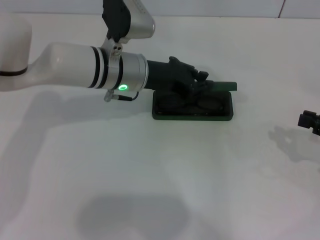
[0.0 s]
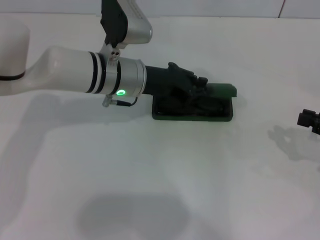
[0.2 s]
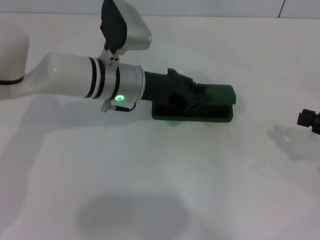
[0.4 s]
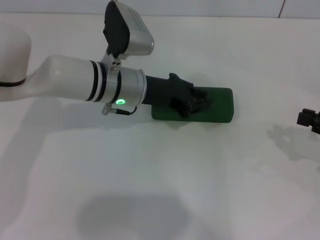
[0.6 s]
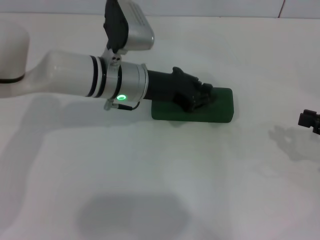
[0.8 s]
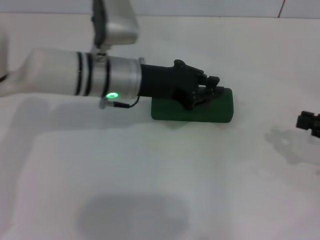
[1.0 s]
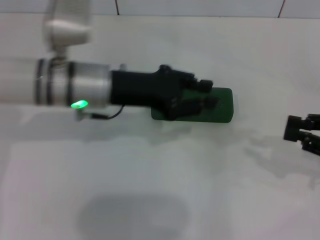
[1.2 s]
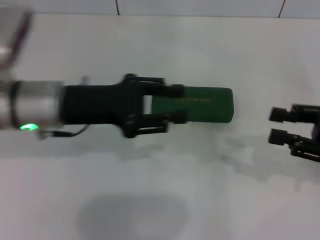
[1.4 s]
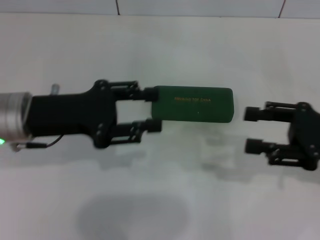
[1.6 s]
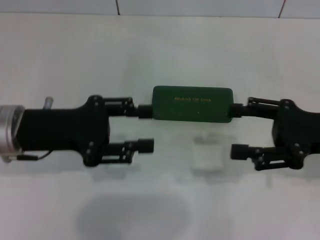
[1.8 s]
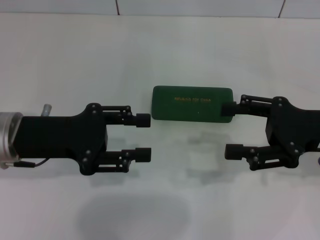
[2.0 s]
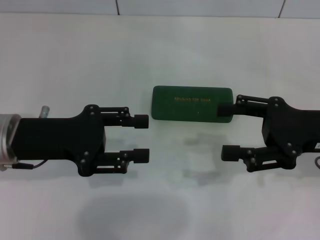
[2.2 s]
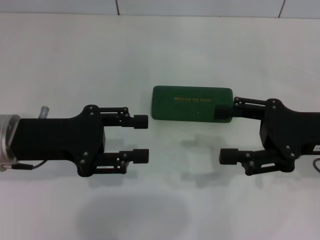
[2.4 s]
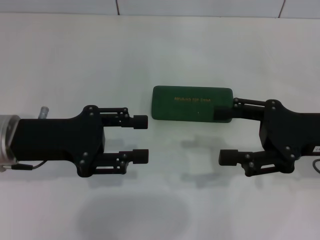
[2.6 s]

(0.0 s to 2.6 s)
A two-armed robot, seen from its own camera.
0.0 s - 1.2 s: The left gripper shifts approximately 5 cm backward.
1.2 s - 2.6 s: The right gripper shifts roughly 10 cm to the left, and opens its fingers. The left gripper moves to the left and backward, approximately 10 cm, and opens its fingers.

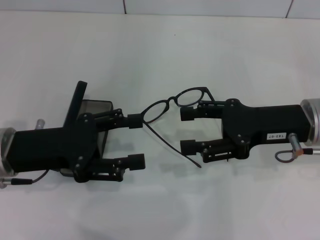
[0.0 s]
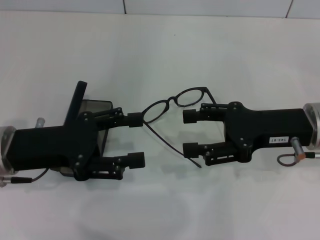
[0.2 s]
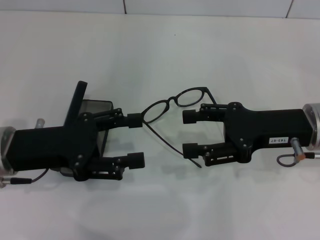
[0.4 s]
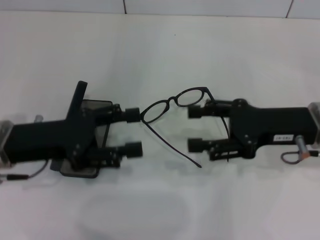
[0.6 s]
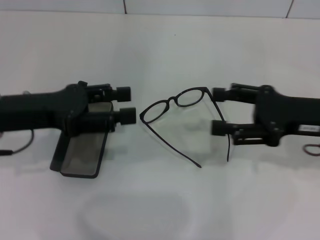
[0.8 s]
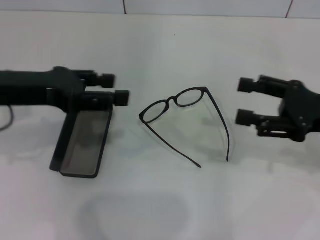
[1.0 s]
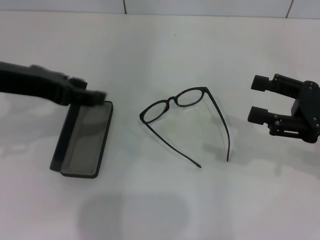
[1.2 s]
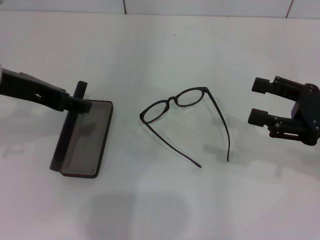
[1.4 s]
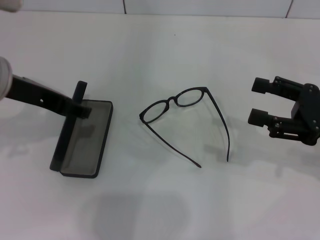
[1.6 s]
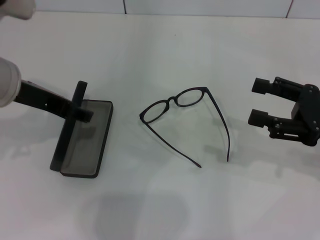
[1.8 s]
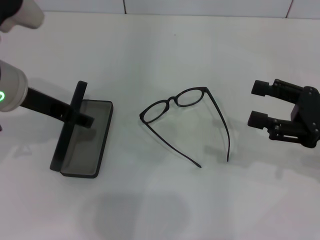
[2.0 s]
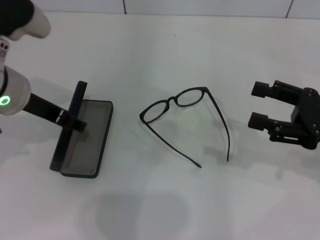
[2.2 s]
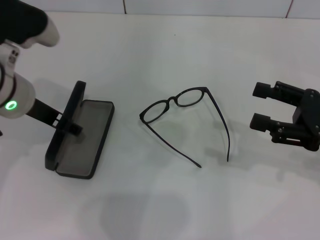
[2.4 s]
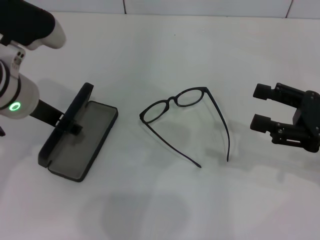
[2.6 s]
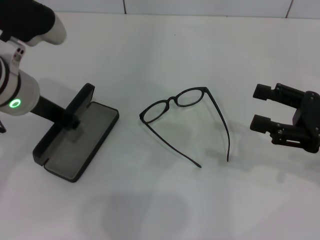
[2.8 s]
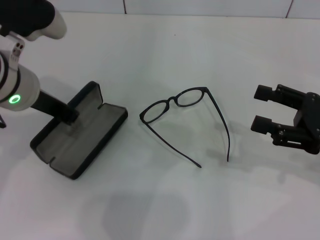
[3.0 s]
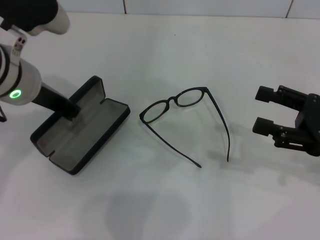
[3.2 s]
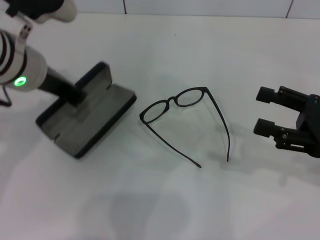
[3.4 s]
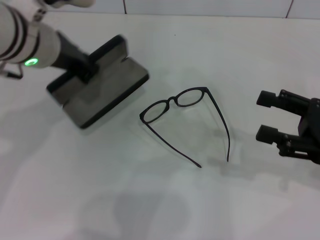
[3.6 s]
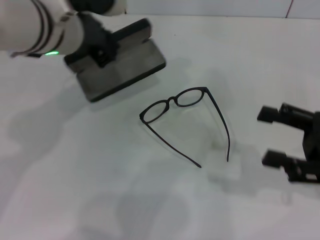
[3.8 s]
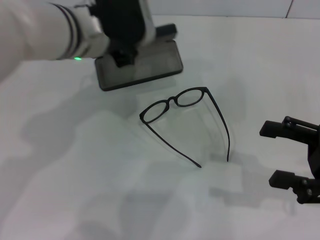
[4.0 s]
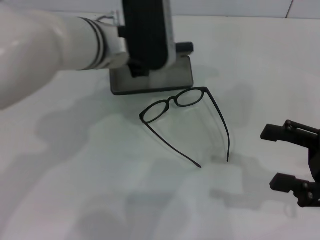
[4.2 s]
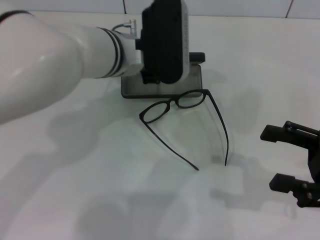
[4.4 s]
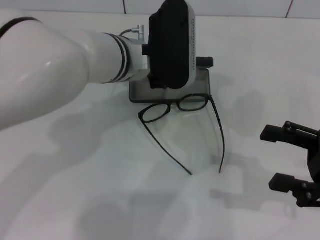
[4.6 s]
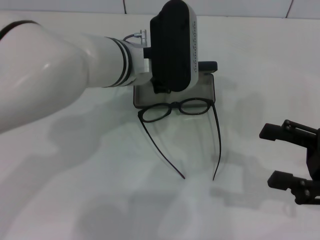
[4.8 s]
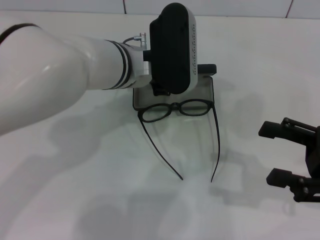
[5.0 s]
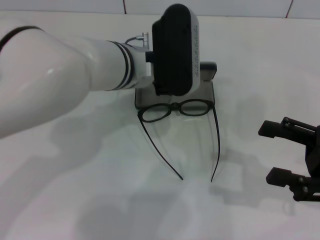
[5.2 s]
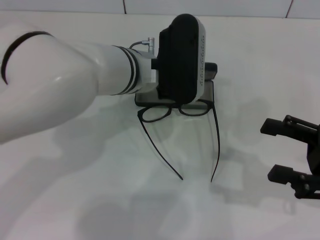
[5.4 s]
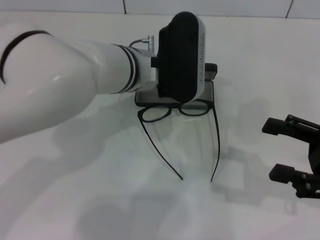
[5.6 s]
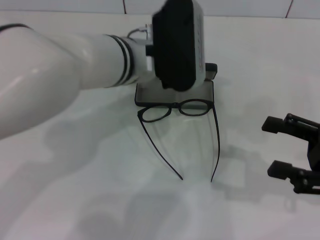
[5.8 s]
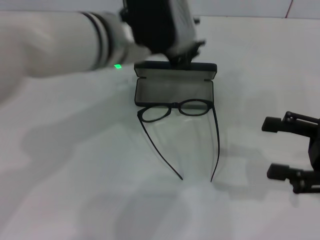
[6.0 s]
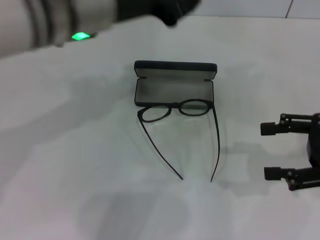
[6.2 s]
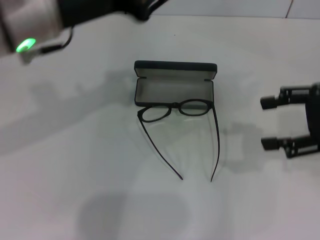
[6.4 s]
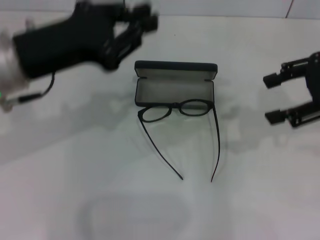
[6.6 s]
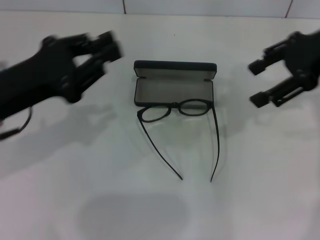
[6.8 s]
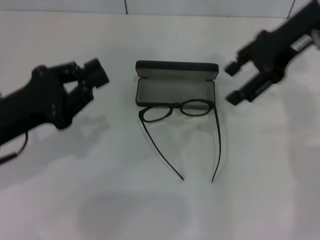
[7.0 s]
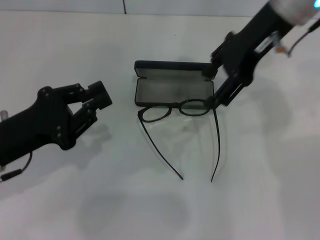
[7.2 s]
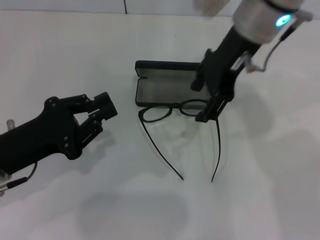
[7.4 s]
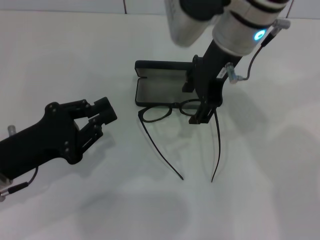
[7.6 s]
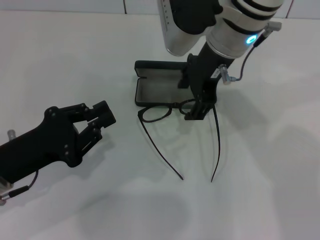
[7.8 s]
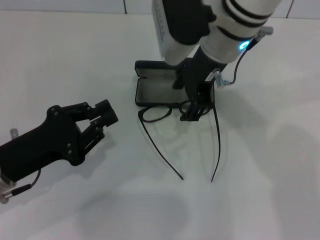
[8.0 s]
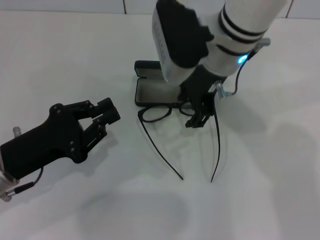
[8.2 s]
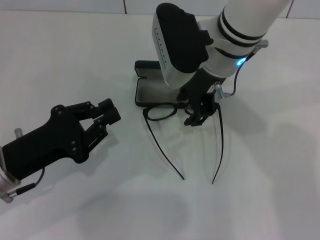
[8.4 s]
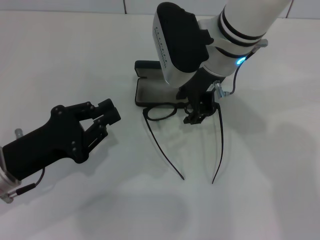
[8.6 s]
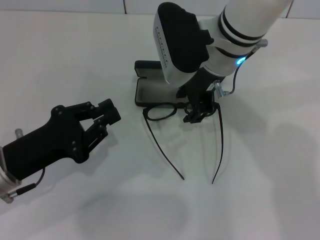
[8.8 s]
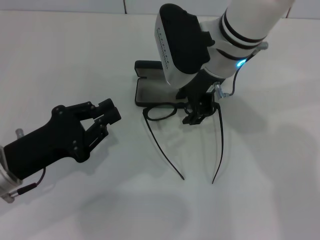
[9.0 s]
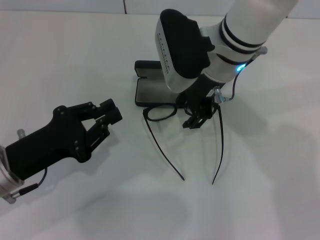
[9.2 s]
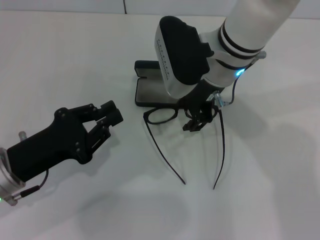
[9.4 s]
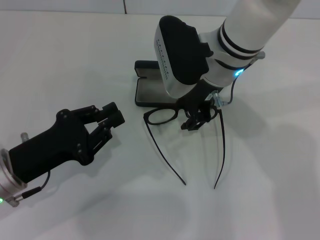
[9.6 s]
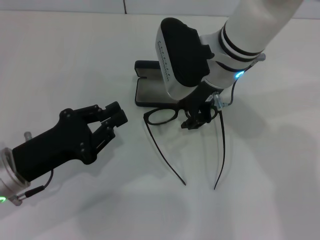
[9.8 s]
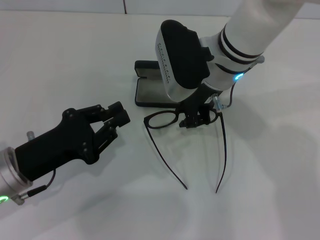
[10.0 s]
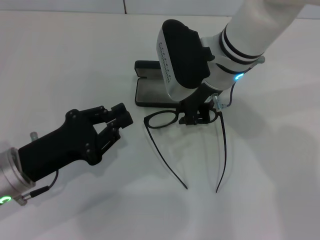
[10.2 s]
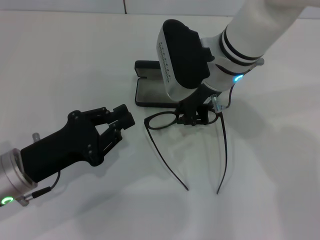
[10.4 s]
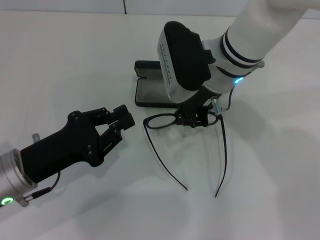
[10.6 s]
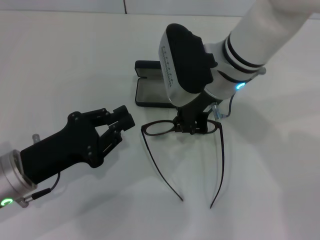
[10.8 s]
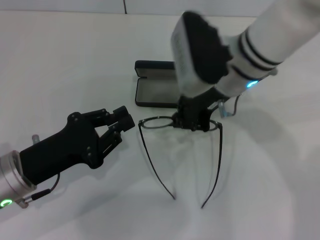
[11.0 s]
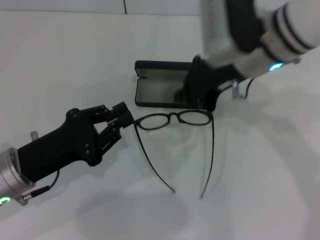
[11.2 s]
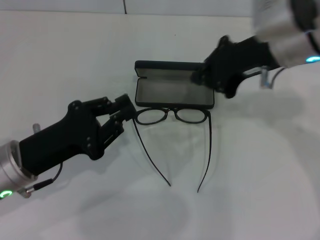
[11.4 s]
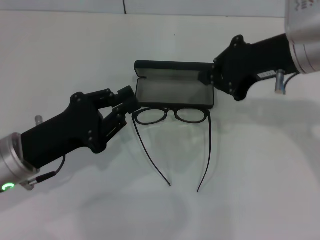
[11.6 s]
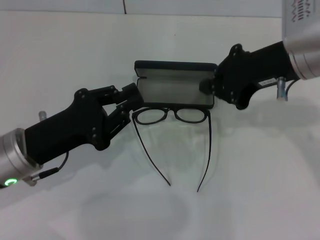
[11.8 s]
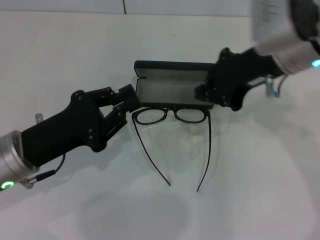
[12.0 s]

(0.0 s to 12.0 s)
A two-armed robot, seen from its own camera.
Step, 0.0 s - 2.8 s: Grab the glasses case with your left hand.
Step, 3.2 s - 5.4 s: Place the glasses case in the center of the table with your left hand.
0.0 s - 1.6 s: The left gripper goes approximately 10 cm upward; the right gripper heads to the right, covering approximately 10 cm.
1.6 s - 3.0 s: The left gripper closes its fingers.
3.0 s - 4.4 s: The left gripper goes approximately 10 cm to the right.
4.4 s - 6.0 s: The left gripper changes place by about 5 cm.
6.0 s - 7.6 s: The left gripper heads to the left, downward and backward, covering roughly 25 cm; the right gripper shifts approximately 30 cm to the left, forward and upward.
7.6 s - 9.0 s: The right gripper is displaced downward by approximately 5 cm.
9.0 s - 10.4 s: The right gripper closes its fingers.
10.4 s - 12.0 s: The right gripper goes approximately 10 cm to the right and upward.

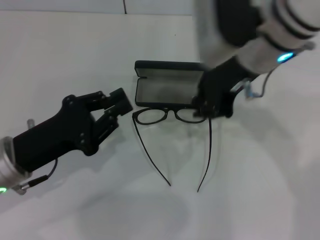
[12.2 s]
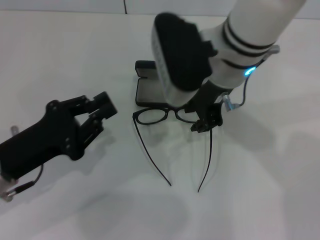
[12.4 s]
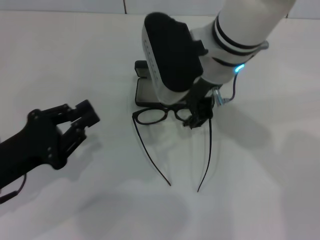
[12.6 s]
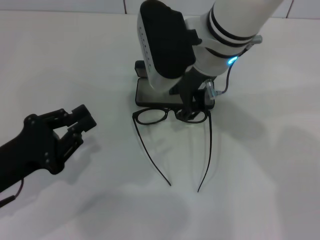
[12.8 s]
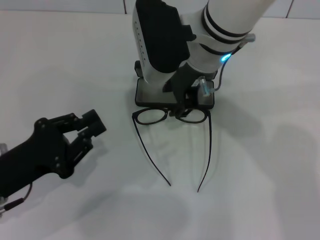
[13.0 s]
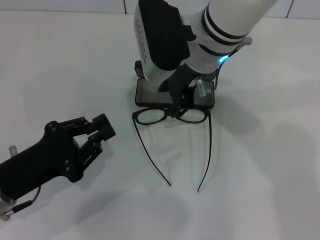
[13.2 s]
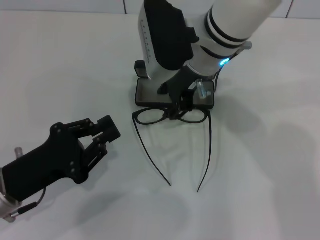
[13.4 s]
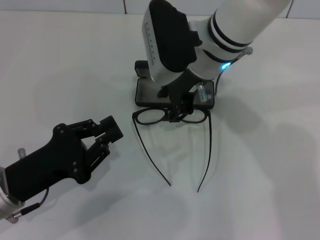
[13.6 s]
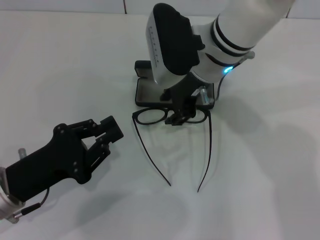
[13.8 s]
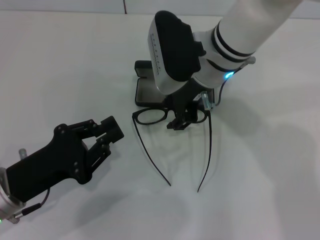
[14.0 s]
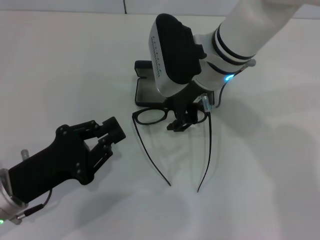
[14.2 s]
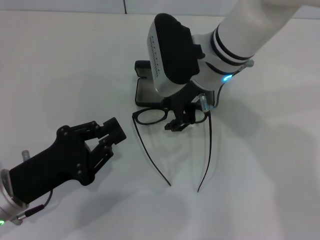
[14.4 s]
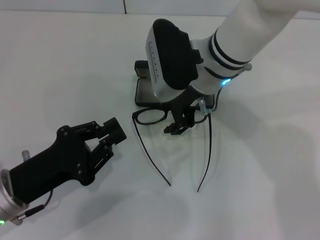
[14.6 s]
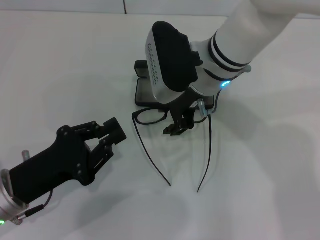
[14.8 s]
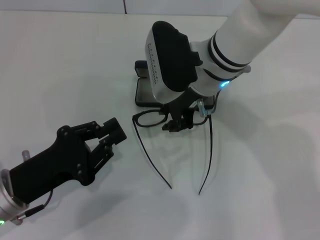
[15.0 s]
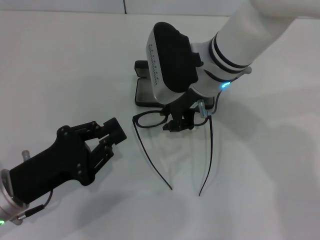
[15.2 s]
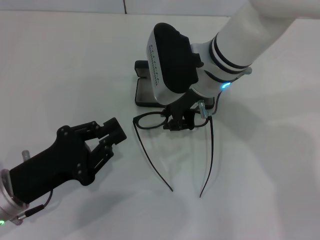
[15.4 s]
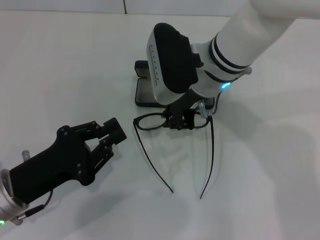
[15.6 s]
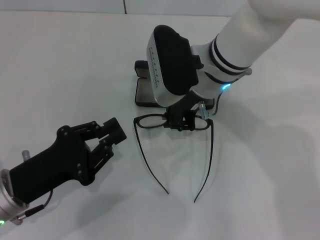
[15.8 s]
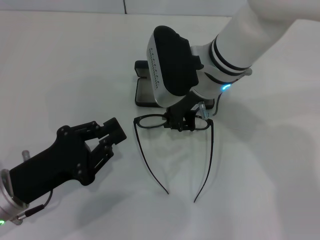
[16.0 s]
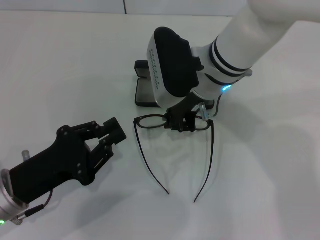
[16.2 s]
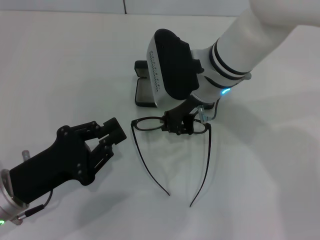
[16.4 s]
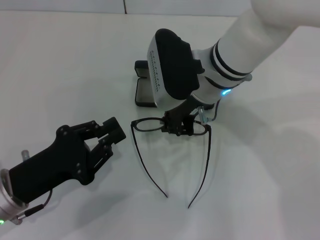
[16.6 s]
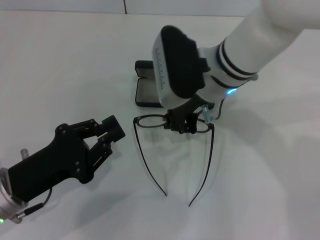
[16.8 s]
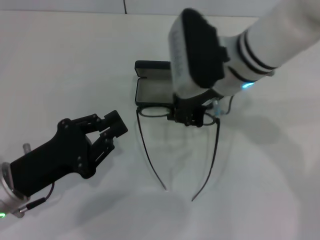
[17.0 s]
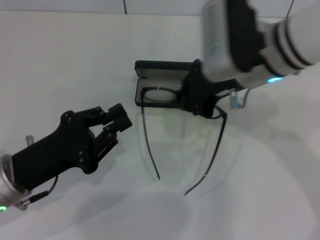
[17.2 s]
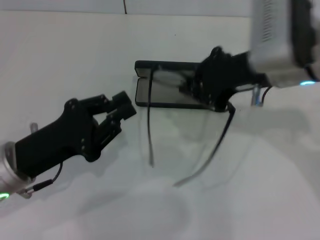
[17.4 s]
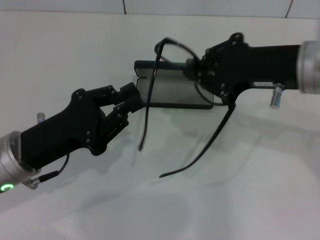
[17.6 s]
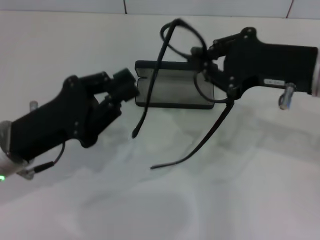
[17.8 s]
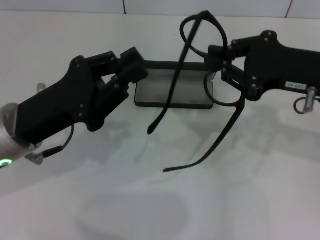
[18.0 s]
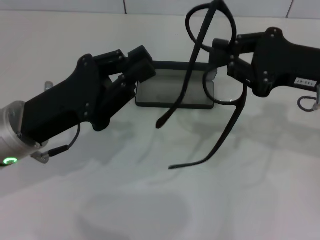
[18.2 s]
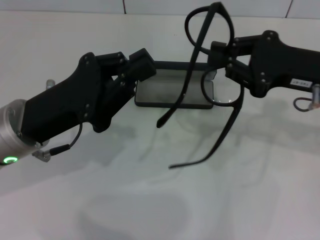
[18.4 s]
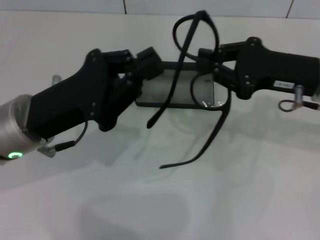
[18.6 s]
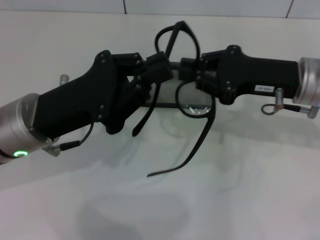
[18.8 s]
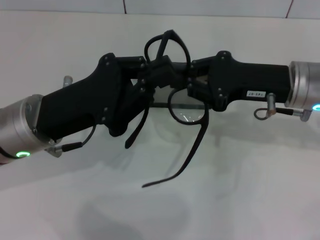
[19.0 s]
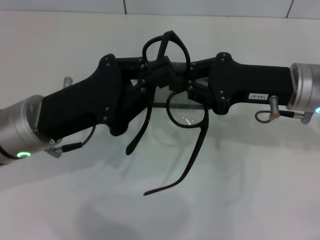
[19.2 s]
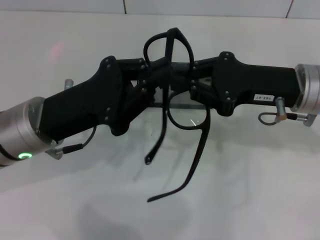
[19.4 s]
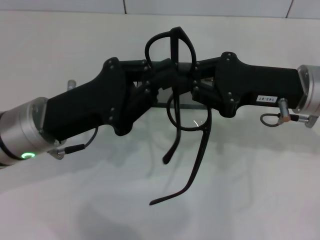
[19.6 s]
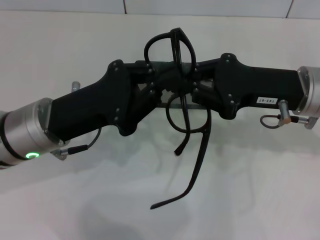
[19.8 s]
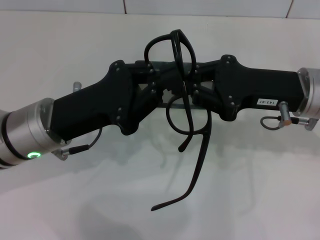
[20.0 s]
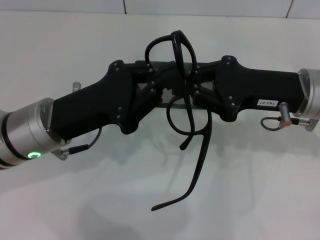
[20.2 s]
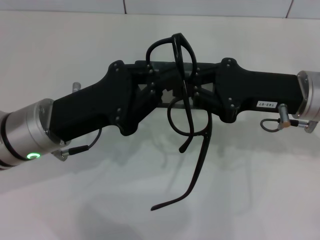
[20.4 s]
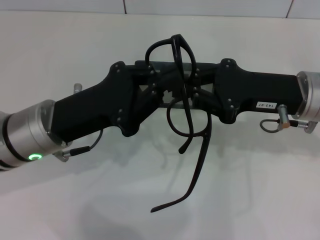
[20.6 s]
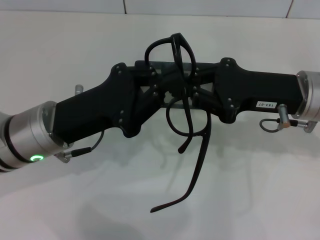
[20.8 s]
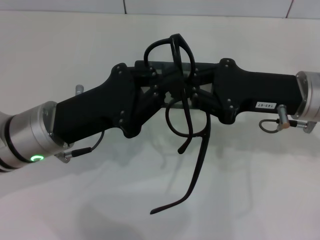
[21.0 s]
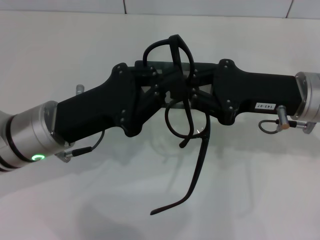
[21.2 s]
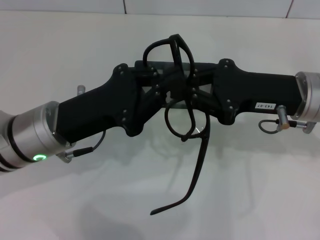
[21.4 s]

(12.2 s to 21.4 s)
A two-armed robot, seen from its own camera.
Step, 12.2 s - 16.6 s: Grab the eyeglass frame with your right hand.
12.2 s - 13.8 s: The right gripper goes approximately 10 cm downward and to the left, and opens its fingers.
13.8 s - 15.2 s: There are only small adjustments of the grippers.
15.2 s - 16.8 s: Both grippers stay put.
16.8 s - 18.4 s: The left gripper moves upward and forward, roughly 10 cm. The right gripper goes approximately 20 cm to the right.
19.8 s - 21.4 s: Neither gripper changes place.
